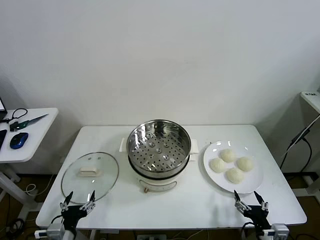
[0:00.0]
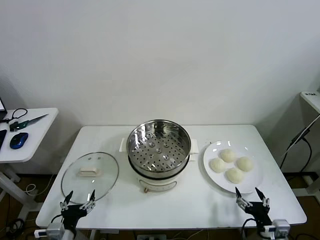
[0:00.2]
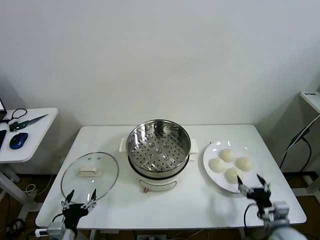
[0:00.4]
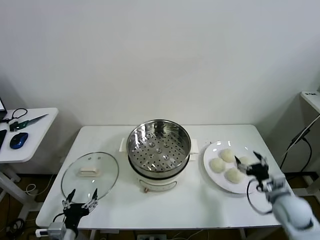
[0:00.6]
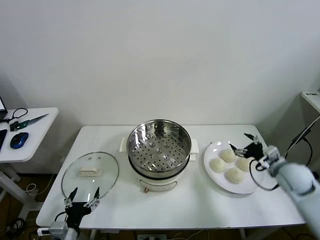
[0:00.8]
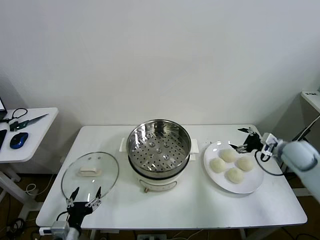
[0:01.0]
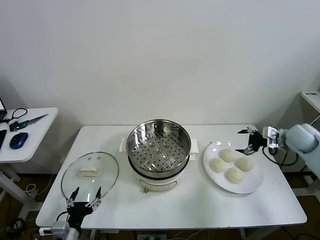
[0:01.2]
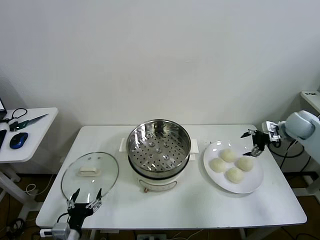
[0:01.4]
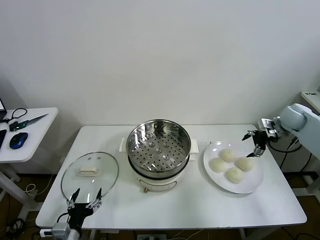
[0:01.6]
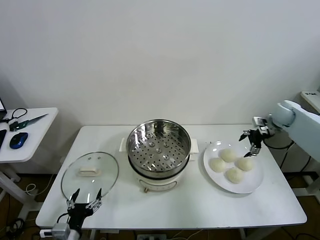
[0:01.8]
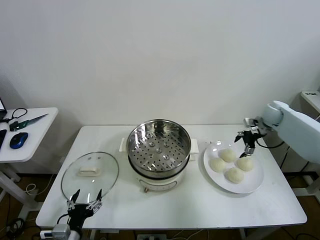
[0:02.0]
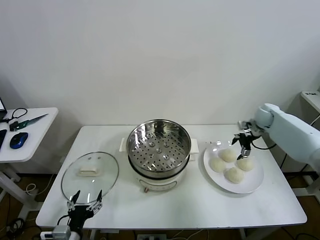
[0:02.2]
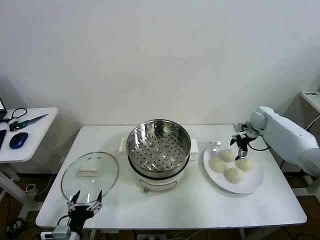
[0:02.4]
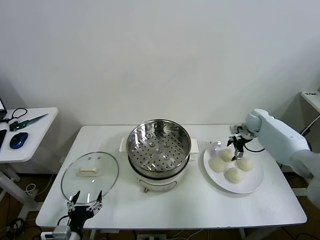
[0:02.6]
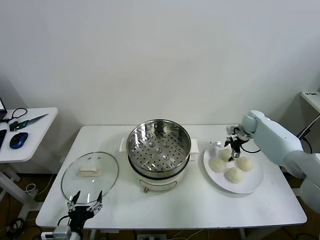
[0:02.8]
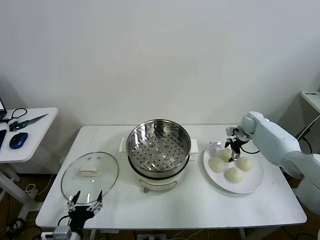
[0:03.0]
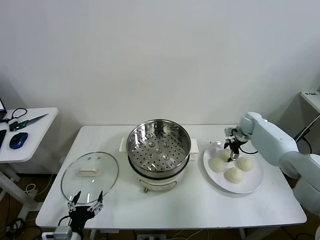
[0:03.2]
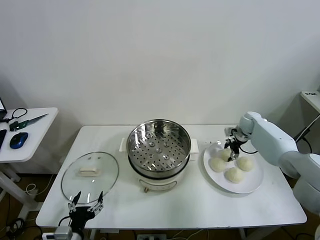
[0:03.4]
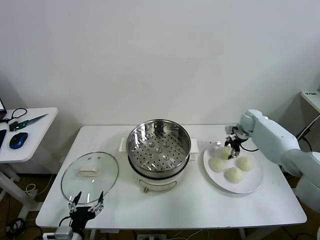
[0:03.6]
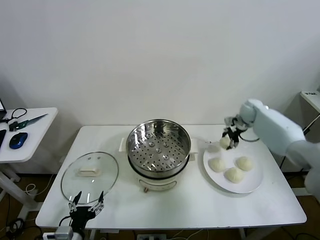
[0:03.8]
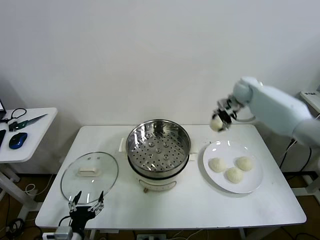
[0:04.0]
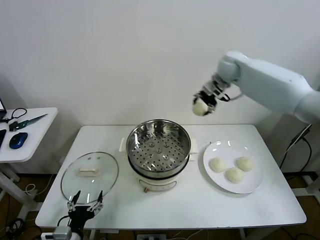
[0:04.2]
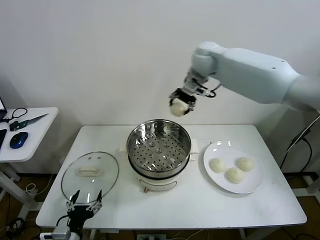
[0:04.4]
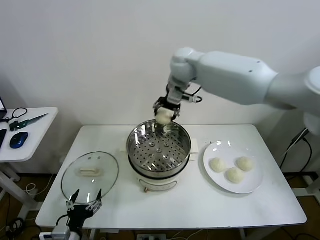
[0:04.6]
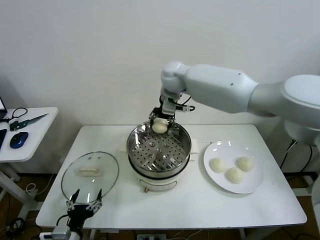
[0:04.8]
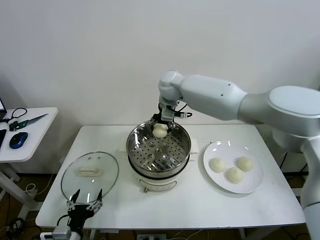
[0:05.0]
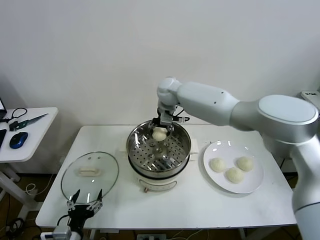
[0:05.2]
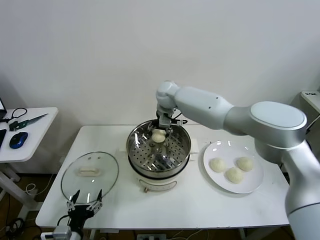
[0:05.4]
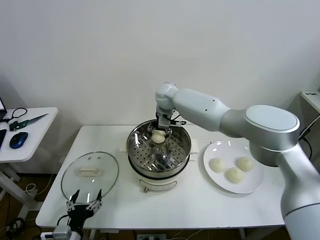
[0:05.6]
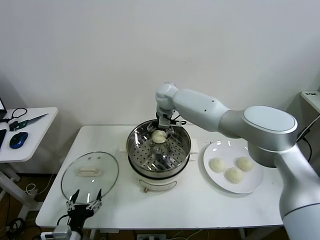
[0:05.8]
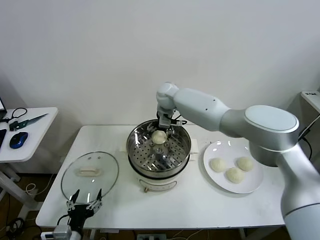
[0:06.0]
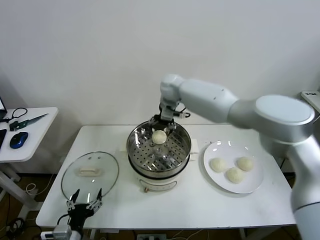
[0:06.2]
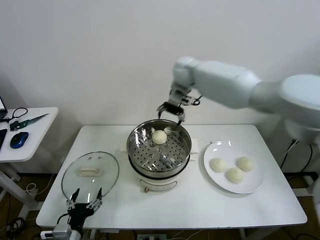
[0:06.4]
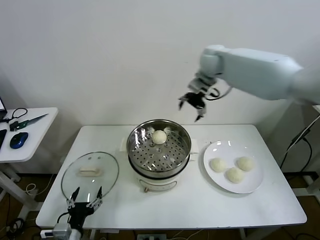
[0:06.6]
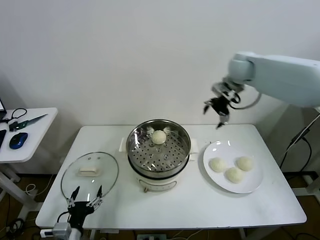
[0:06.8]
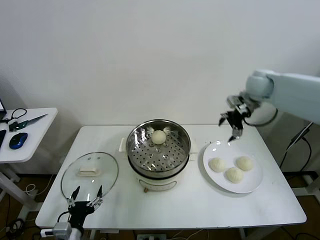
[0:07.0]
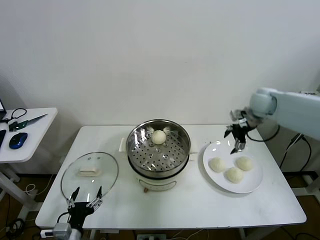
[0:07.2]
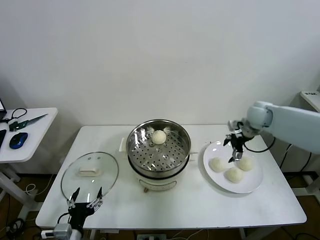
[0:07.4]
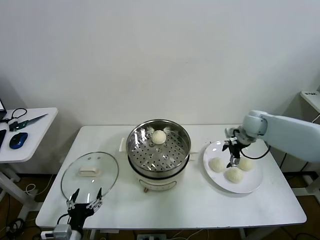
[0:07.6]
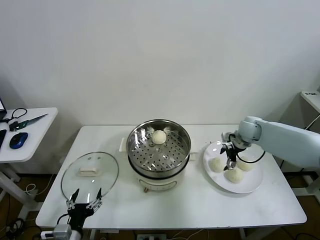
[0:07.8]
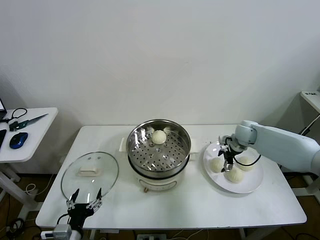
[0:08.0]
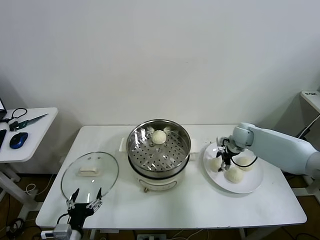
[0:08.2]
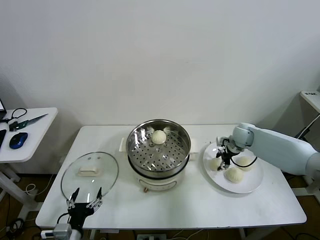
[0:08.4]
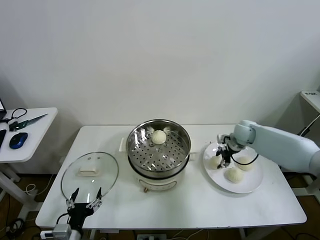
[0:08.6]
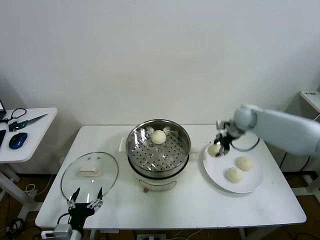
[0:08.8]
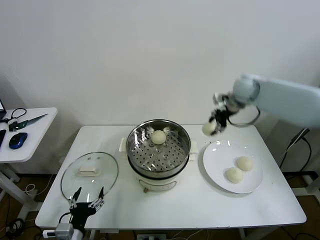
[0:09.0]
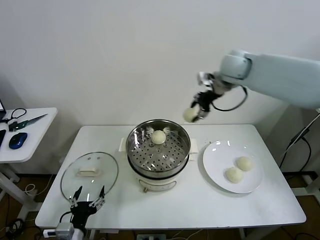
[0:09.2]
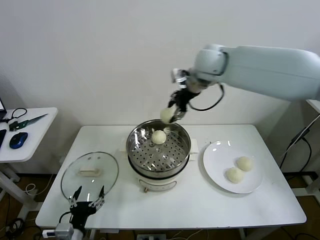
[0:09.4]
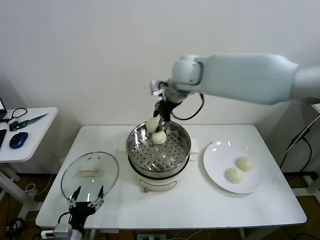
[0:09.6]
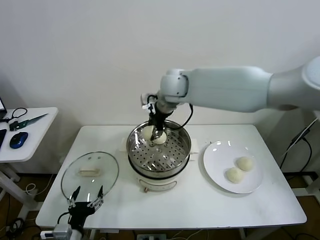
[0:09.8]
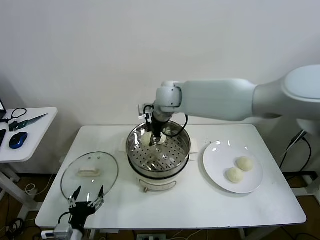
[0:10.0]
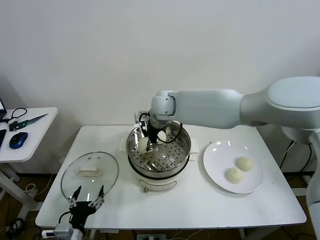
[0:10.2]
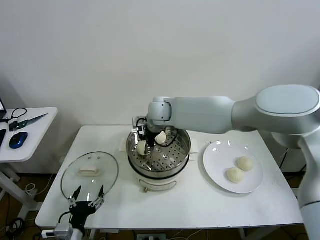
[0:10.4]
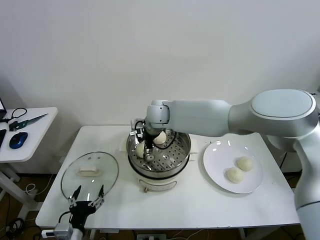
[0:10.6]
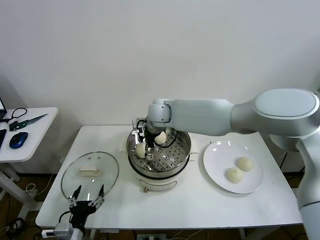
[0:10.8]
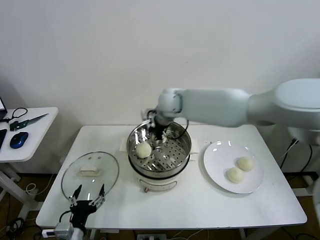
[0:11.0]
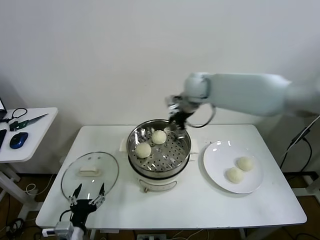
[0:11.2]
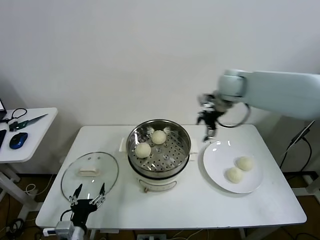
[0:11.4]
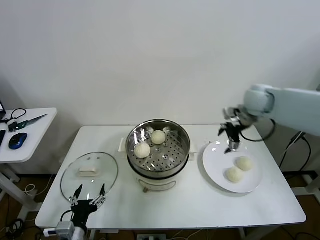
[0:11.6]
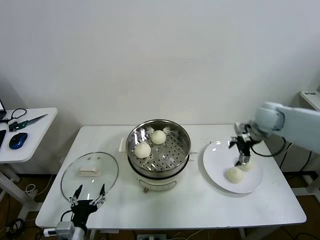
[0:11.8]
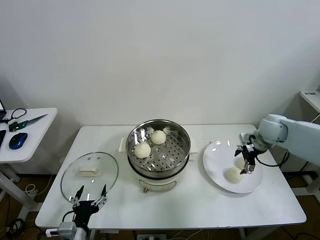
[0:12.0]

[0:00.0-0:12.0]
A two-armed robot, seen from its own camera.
Task of the whole recording: take steamed baozi put them in steamer then cover it.
Step, 0:00.0 to 0:03.2: Grasp the baozi in the plate with right gripper.
Step, 0:03.4 to 0:06.0: Place the baozi on the steamer with right gripper.
Step, 0:06.2 to 0:08.2: Grasp the baozi in the plate with right gripper.
Step, 0:08.6 to 0:10.8: Place the baozi on the steamer with right gripper.
0:01.6 to 0:03.0: The right gripper goes about 15 cm downward, to the left and forward.
0:03.0 to 0:04.4: The right gripper shifts some 40 cm to the left and upward, and closes.
0:04.4 to 0:06.0: The right gripper is displaced downward and to the left by about 15 cm, and opens up.
0:06.0 to 0:07.6: The right gripper heads to the right, covering about 30 cm.
0:07.6 to 0:09.0: The right gripper is displaced upward and to the left by roughly 20 cm, and closes.
0:09.0 to 0:10.4: The right gripper goes approximately 30 cm to the left and downward.
0:10.4 to 0:12.0: The right gripper shifts roughly 40 cm to the right, and opens its fingers.

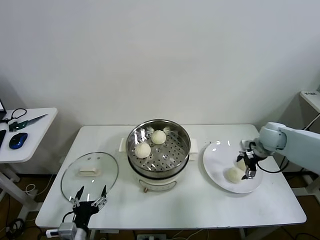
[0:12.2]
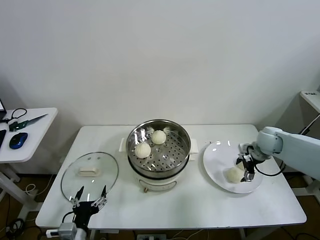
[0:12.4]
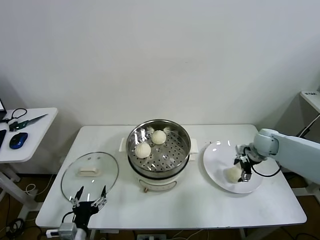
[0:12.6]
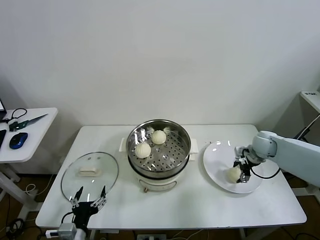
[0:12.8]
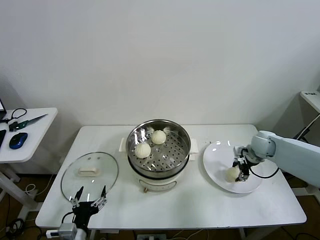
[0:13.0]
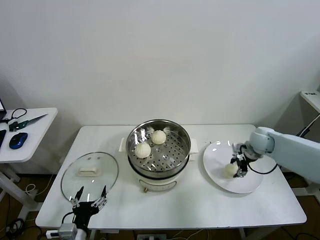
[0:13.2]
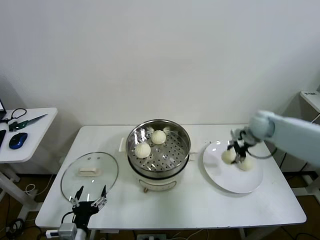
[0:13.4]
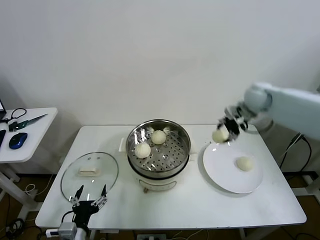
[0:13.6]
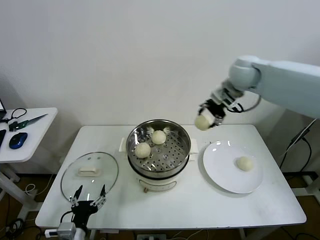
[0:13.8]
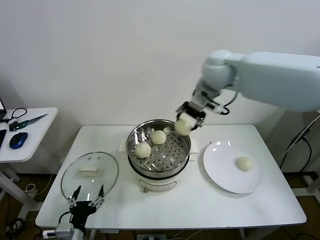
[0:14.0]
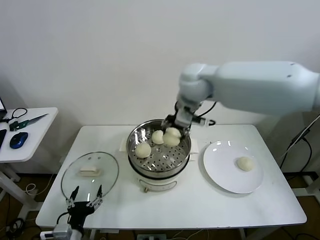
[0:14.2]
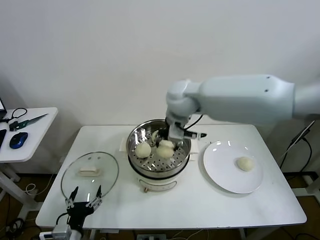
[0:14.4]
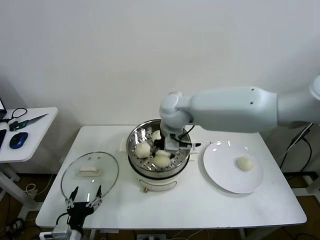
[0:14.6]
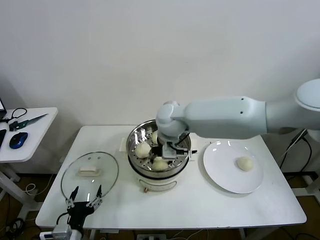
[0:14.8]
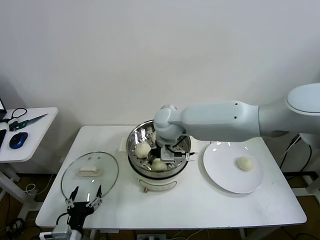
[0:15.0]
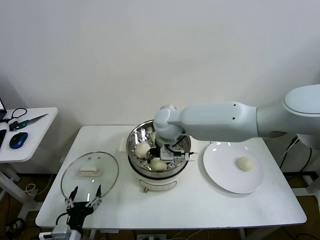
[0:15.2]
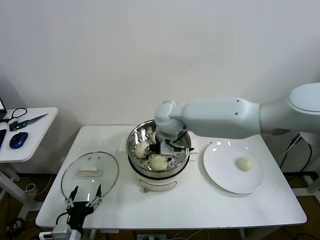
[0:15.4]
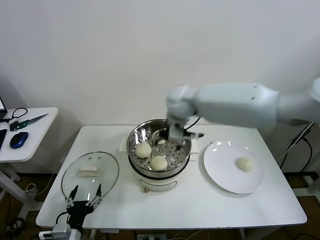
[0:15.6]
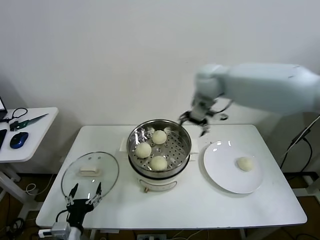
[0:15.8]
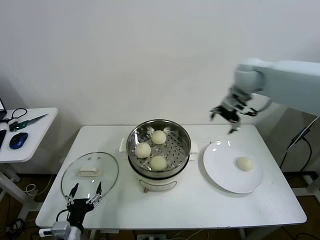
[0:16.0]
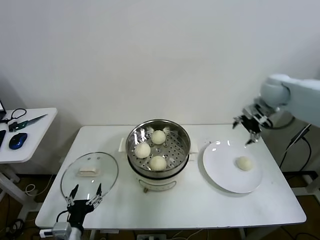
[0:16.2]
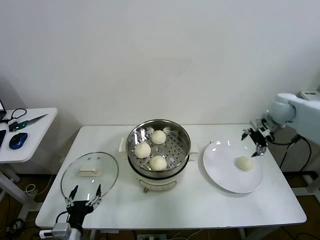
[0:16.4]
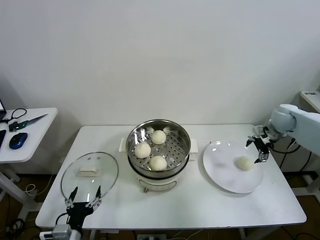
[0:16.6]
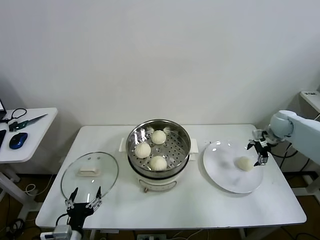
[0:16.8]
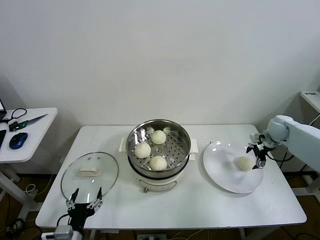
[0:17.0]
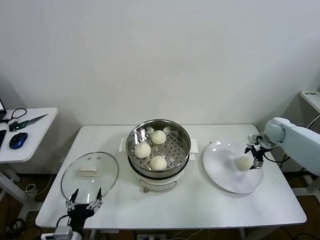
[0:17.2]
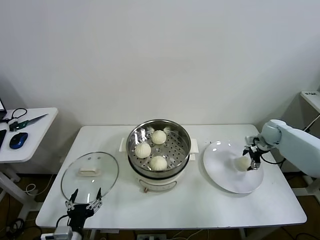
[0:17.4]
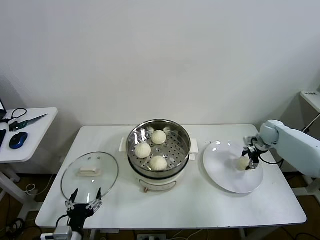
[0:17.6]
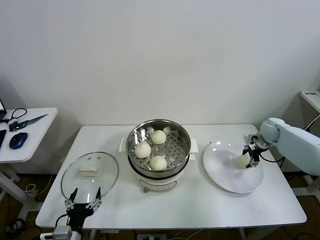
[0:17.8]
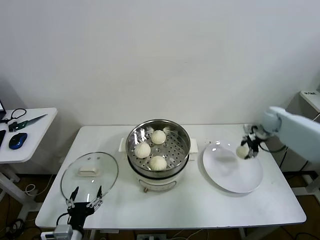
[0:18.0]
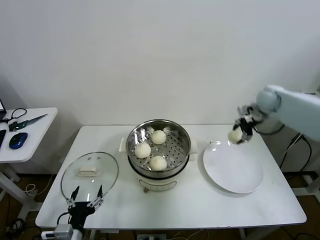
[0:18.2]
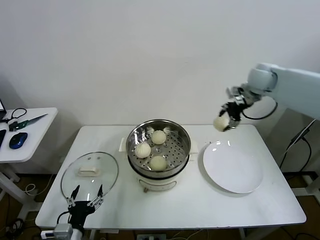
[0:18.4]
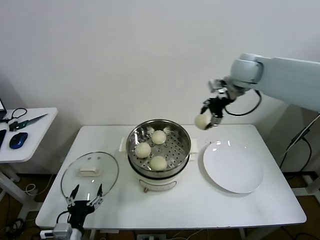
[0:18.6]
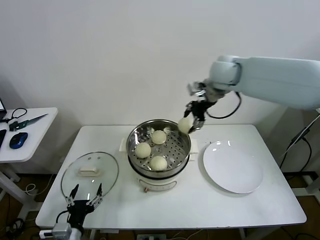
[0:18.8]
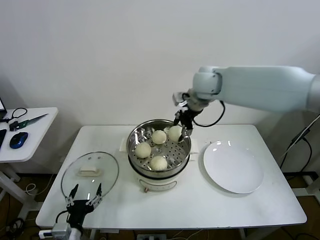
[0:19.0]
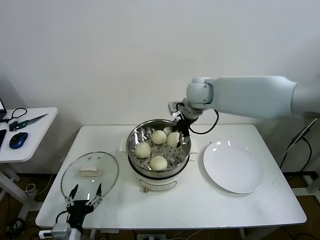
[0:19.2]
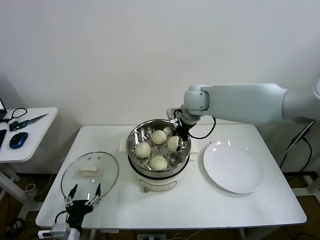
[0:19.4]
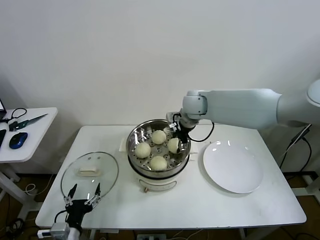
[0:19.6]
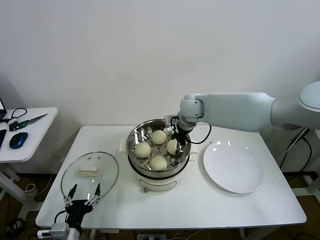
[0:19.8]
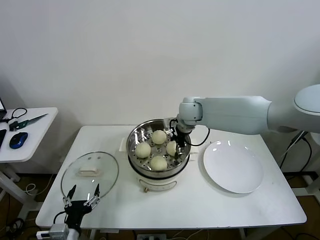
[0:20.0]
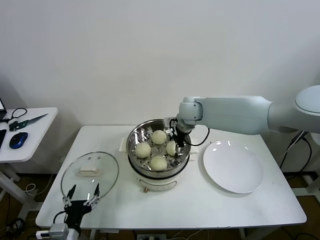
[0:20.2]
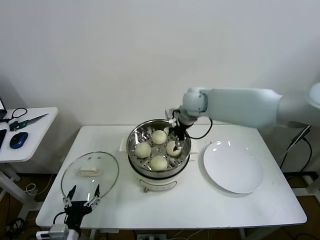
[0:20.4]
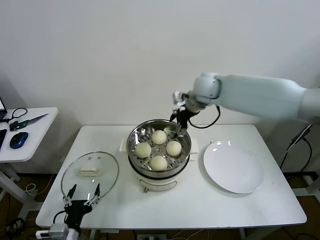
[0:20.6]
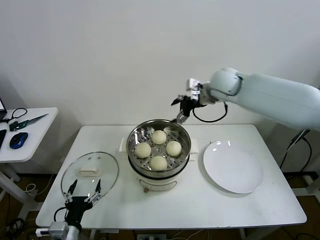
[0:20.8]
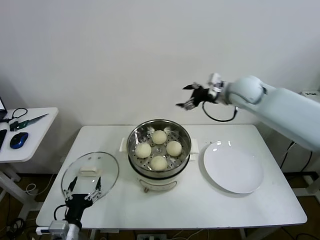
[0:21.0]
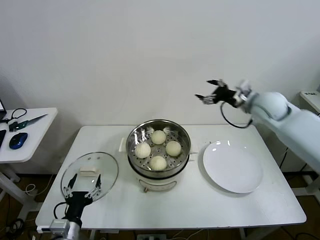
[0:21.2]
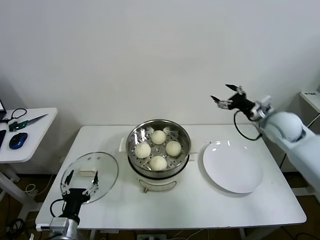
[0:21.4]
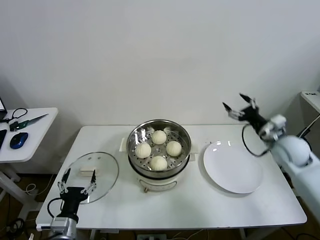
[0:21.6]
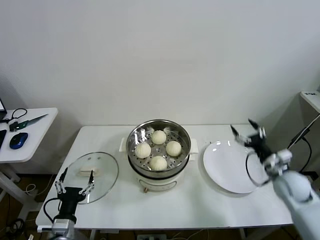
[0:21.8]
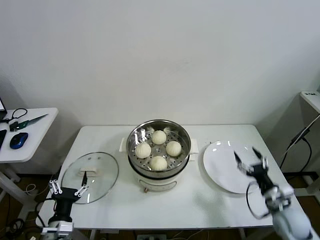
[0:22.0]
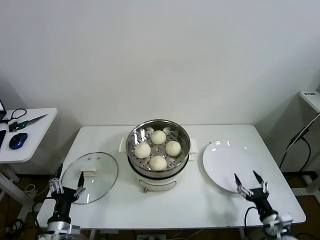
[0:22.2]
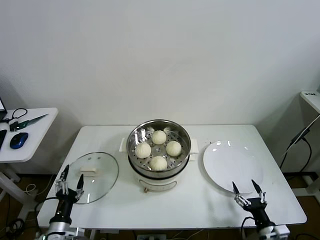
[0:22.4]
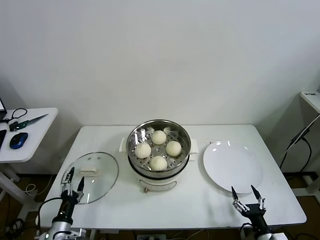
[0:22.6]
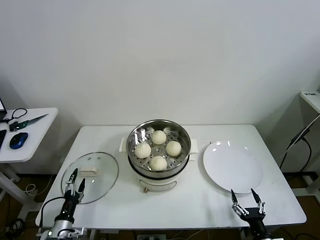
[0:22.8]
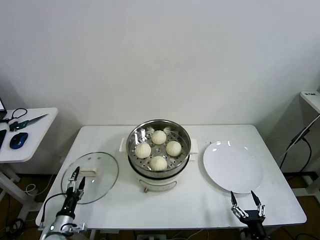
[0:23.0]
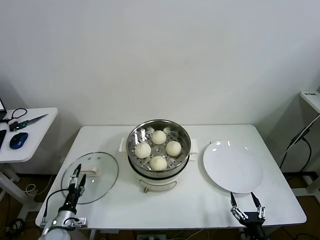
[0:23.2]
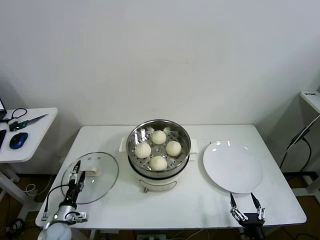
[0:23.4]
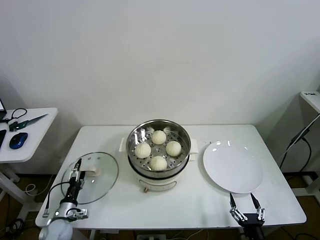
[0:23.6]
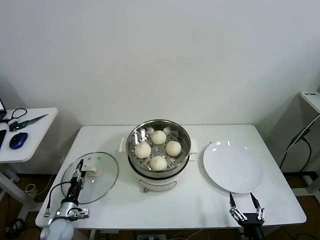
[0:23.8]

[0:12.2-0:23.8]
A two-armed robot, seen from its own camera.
Task of the whole recording: take steamed baozi put them in steamer then cover it.
Step, 0:13.0 to 0:15.4: Place the baozi on the steamer with right gripper.
Step, 0:15.6 to 0:17.6: Grasp the baozi in the plate with right gripper.
Step, 0:17.8 to 0:20.0: Place the baozi on the steamer with right gripper.
0:12.2 to 0:13.6: The right gripper travels upward, to the left and forward by roughly 20 cm, and closes.
0:13.6 to 0:15.0: The right gripper is displaced to the left by about 30 cm.
0:15.0 to 0:16.6: The right gripper travels to the right by roughly 40 cm, and opens.
0:16.6 to 0:18.0: The right gripper goes downward and returns, about 10 cm each way, and closes up.
0:18.0 to 0:19.4: The right gripper goes roughly 30 cm to the left.
0:19.4 to 0:21.0: The right gripper heads to the right, covering some 15 cm, and opens.
0:21.0 to 0:22.4: The left gripper heads downward and to the left, covering approximately 10 cm; the right gripper travels downward and backward by about 50 cm.
0:22.4 to 0:23.8: The right gripper is displaced backward and to the left by approximately 10 cm; the left gripper moves forward, downward and to the left, roughly 15 cm.
